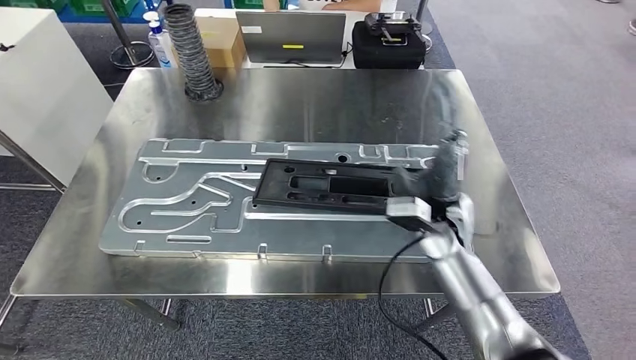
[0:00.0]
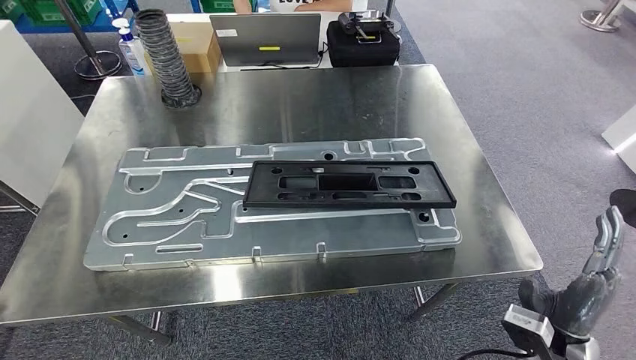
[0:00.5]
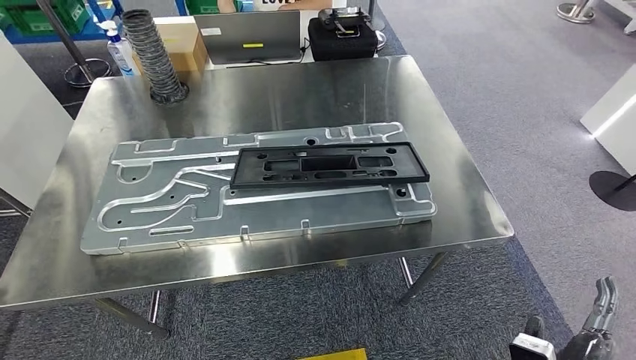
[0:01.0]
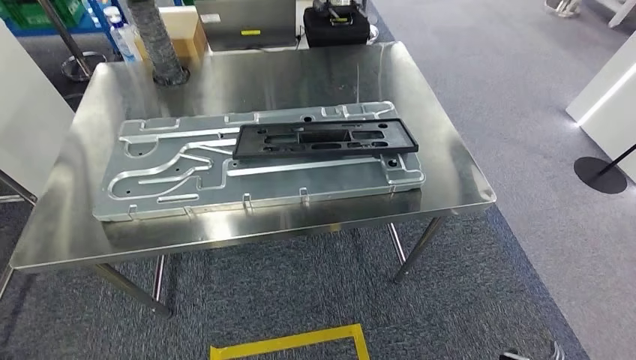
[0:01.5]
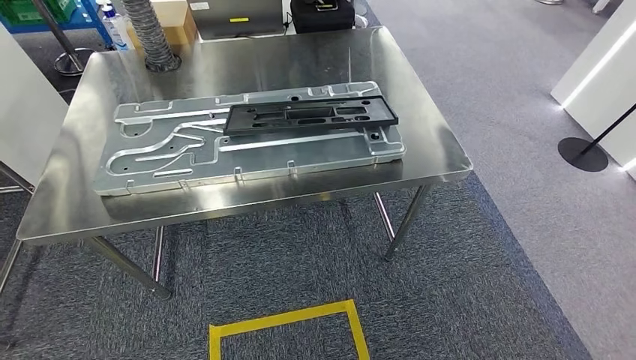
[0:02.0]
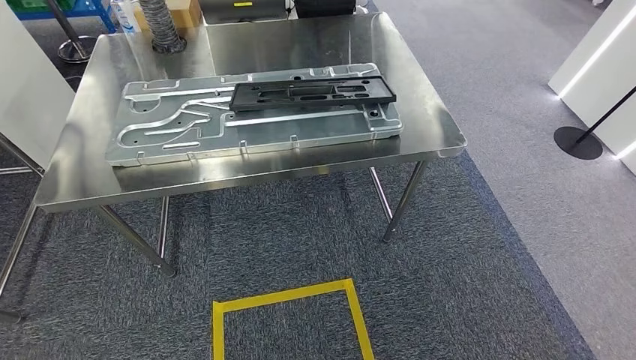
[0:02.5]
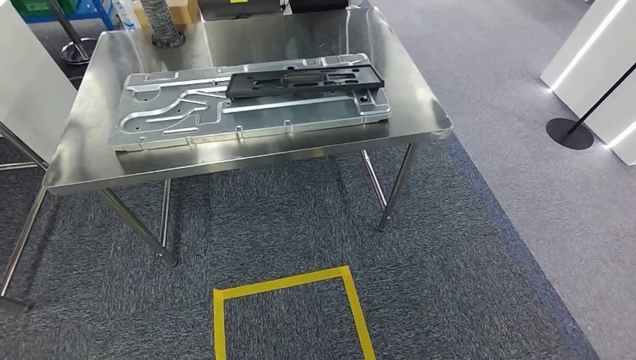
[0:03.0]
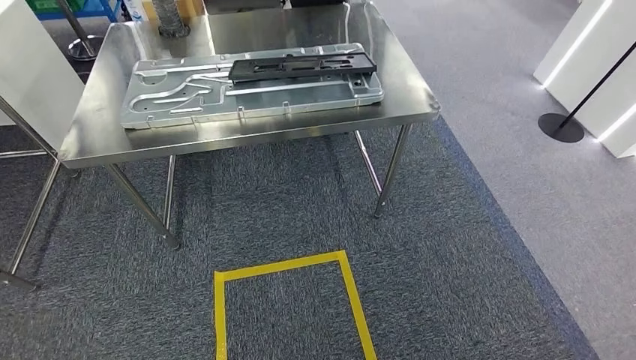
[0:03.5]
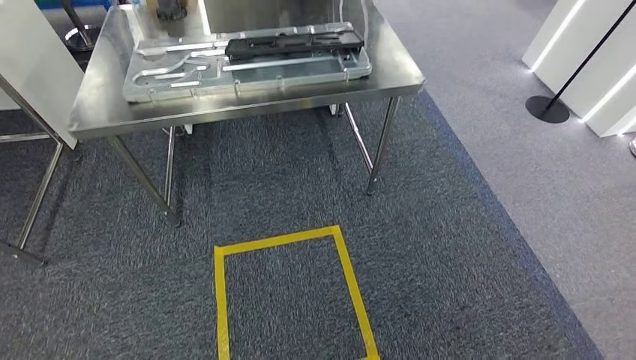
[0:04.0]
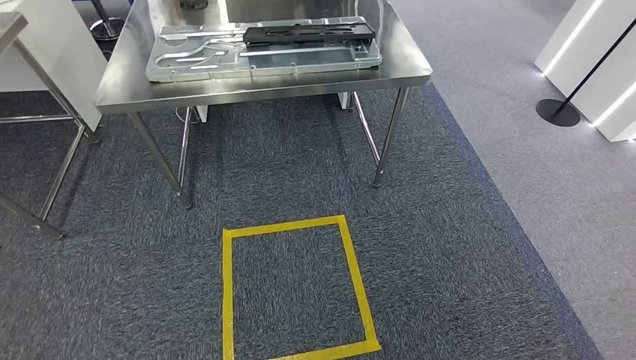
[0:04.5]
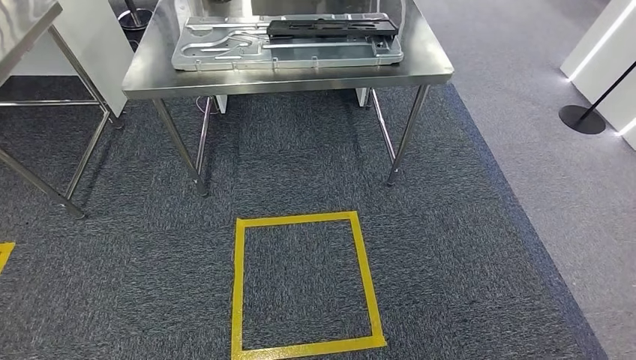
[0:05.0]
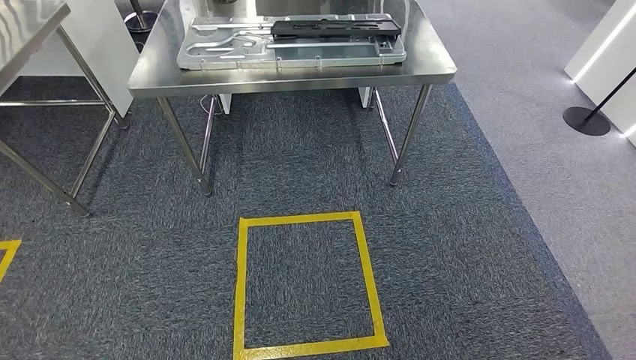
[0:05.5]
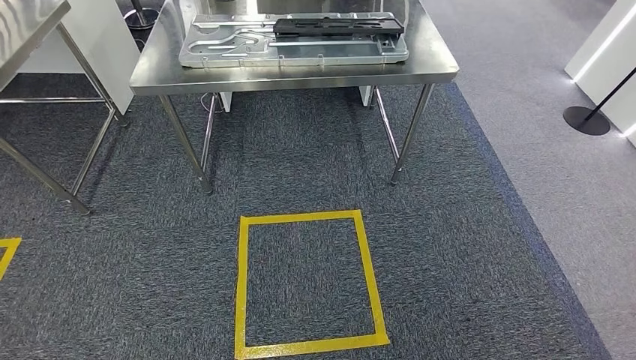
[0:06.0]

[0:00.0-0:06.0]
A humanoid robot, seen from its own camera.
Step, 0:01.5 to 0:06.0: Move to the initial position of the shelf.
